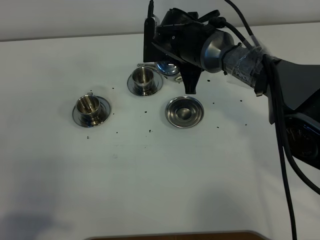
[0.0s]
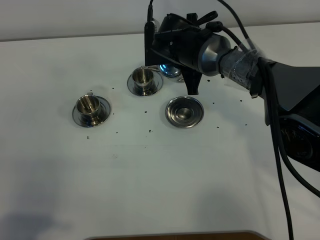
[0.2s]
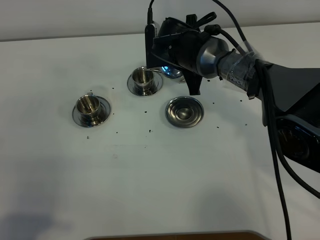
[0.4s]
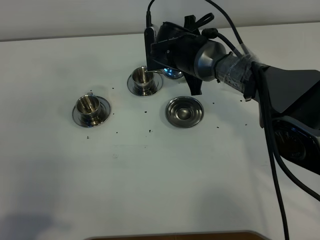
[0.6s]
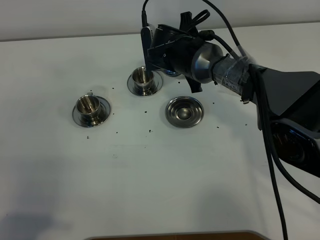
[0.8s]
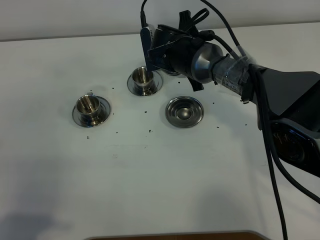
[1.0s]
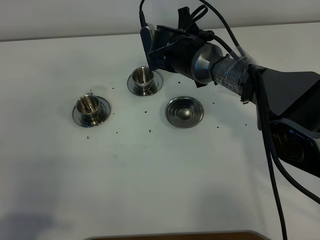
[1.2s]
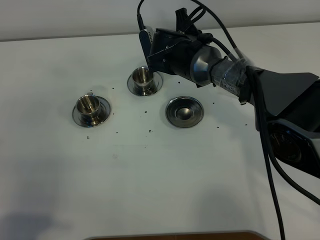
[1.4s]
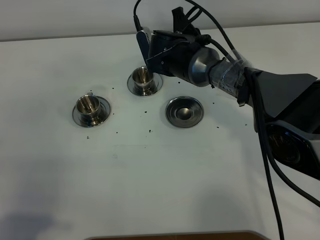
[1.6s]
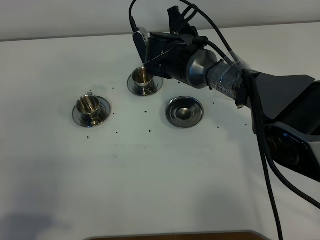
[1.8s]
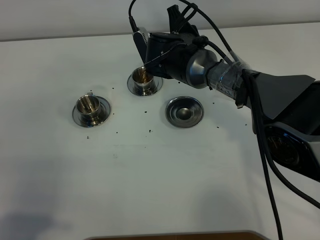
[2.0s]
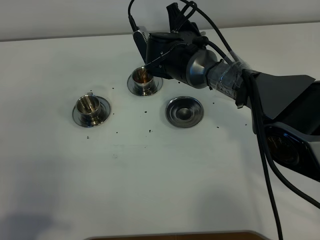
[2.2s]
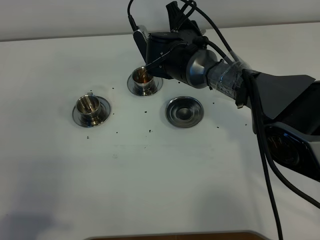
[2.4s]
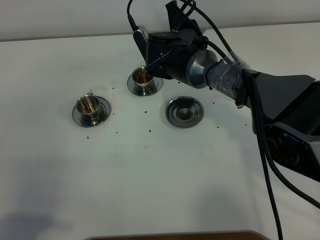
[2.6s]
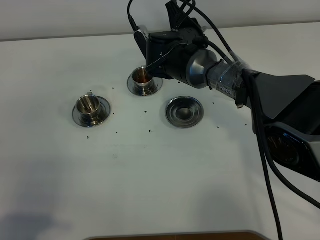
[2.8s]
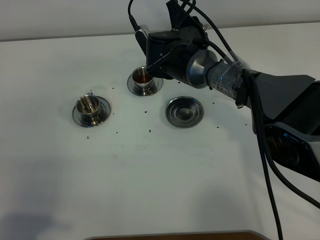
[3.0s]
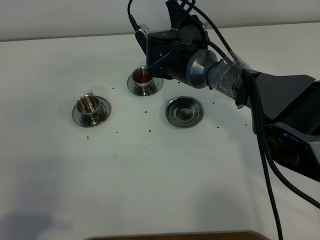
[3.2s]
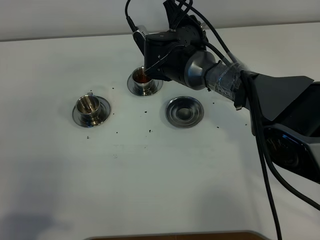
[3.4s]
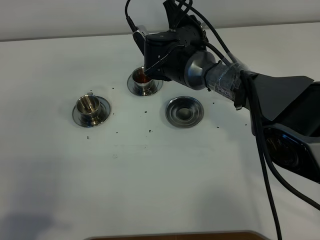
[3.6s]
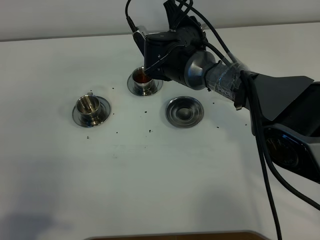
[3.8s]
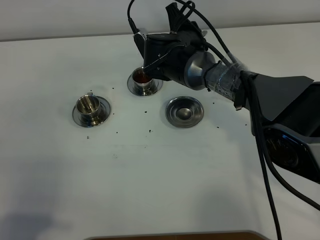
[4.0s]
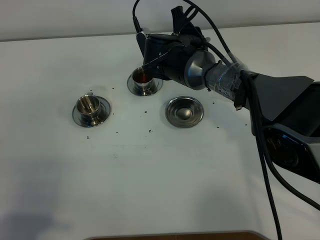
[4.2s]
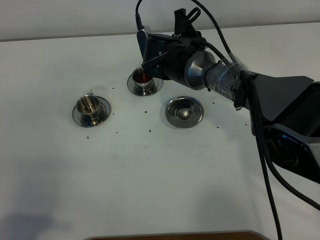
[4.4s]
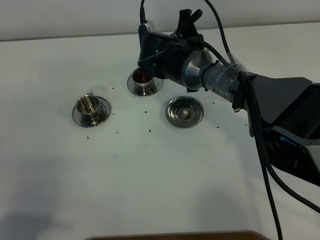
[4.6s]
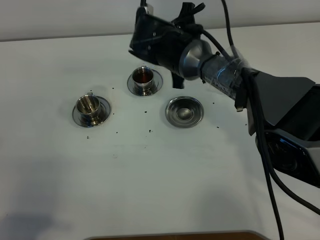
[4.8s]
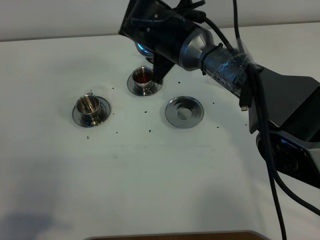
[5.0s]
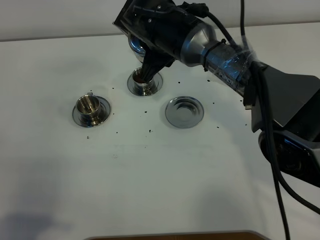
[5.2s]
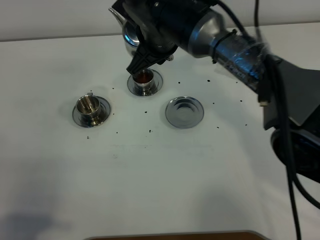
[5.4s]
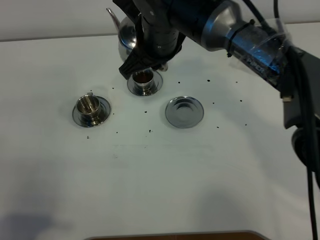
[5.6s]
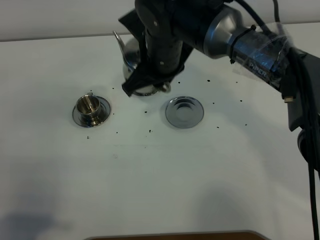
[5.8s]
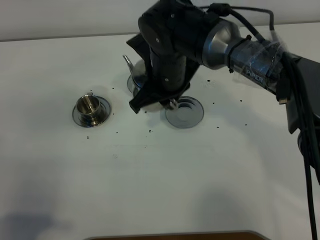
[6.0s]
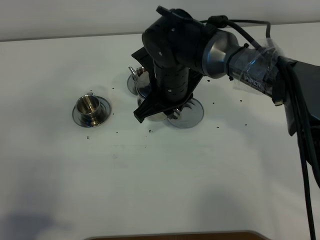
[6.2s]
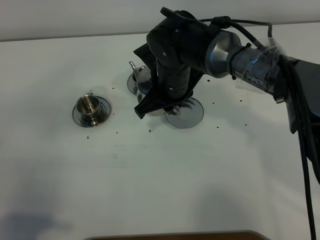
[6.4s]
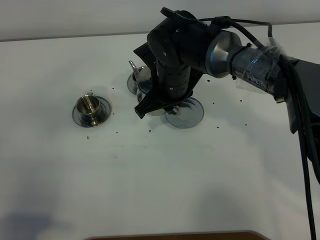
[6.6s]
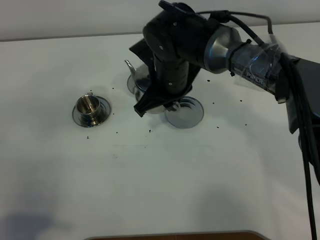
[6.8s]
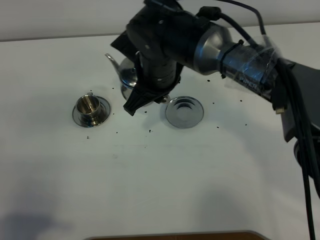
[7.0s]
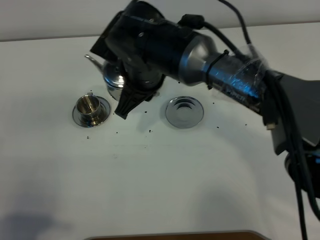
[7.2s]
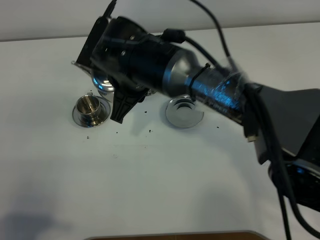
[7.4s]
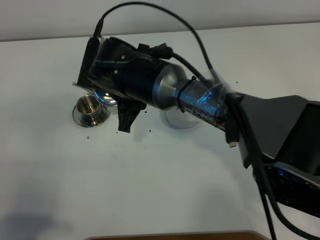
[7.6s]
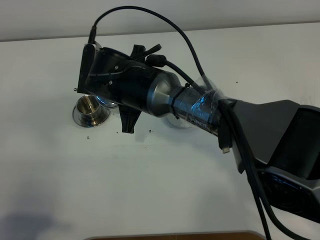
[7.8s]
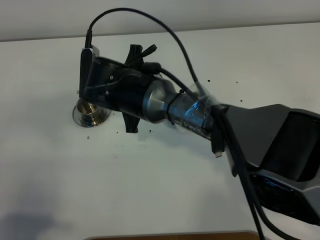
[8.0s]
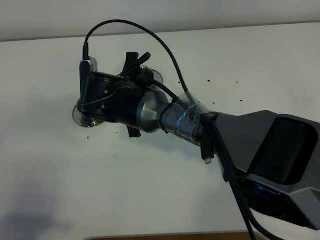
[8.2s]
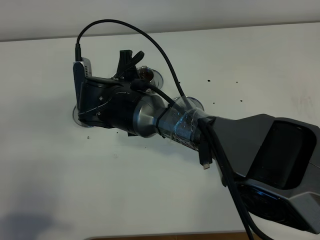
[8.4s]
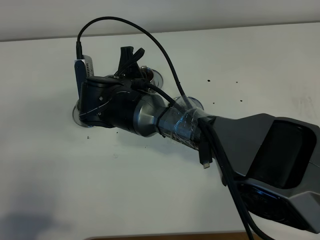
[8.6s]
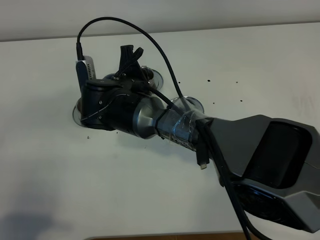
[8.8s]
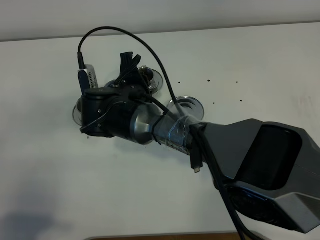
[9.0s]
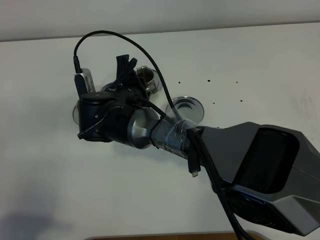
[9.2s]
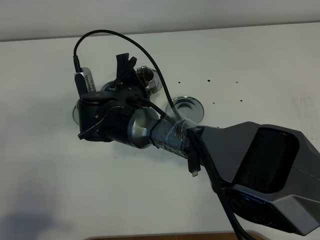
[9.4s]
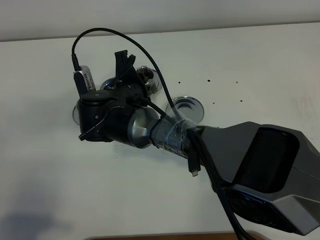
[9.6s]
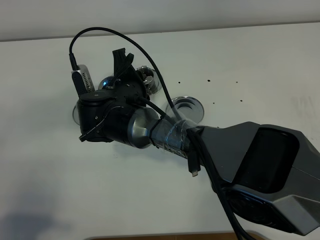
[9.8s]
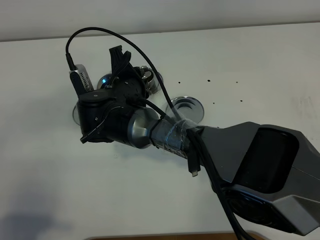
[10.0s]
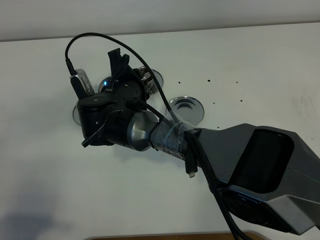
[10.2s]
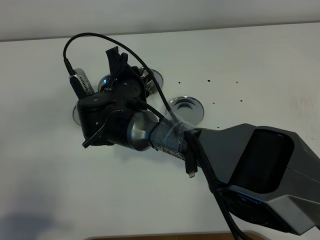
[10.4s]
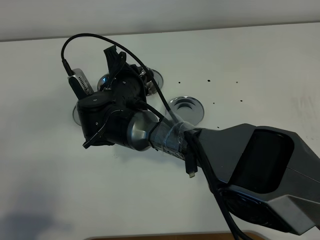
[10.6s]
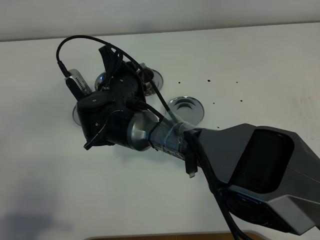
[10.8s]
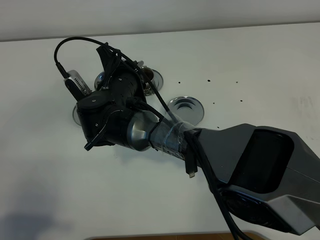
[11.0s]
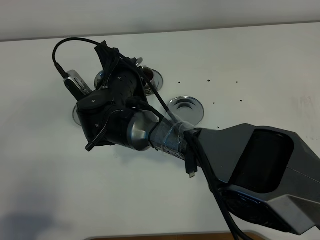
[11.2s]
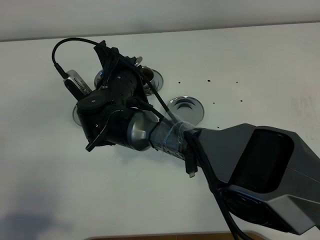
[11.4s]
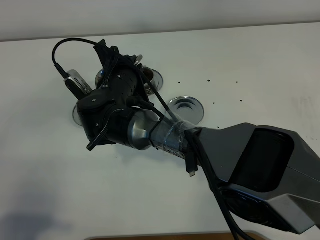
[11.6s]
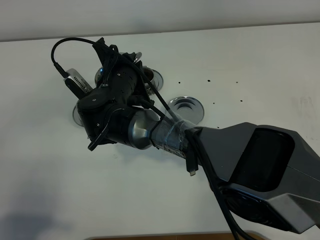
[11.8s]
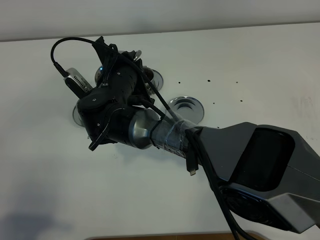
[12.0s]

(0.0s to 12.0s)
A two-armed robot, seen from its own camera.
Task of the whole recording: grasp the stainless steel teapot and pour the tea into the two stainless steel teacups one by one, put the stainless steel teapot back in its original place.
Step, 0.0s - 4.8s: Pour tea into the teacup with the right gripper.
1.6s - 4.4s: There are only small adjustments of the grippers.
4.4s - 6.0s: The right gripper heads backward, covering approximately 10 cm.
6.0s - 7.6s: The right gripper travels to the left by about 5 cm.
7.6s - 9.0s: The right gripper changes place by some 5 cm.
9.0s - 10.4s: The grippers stay close to where they were, moving slightly.
10.4s - 12.0s: There are only small adjustments of the grippers.

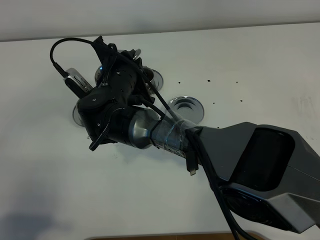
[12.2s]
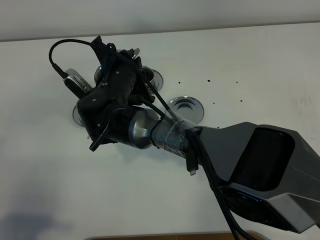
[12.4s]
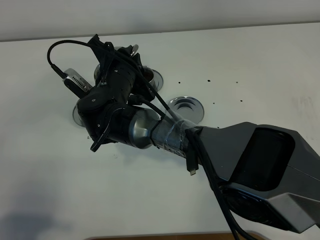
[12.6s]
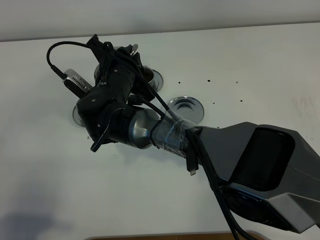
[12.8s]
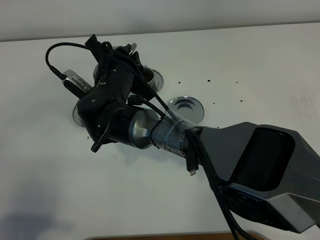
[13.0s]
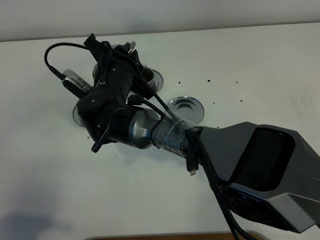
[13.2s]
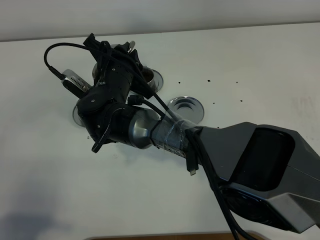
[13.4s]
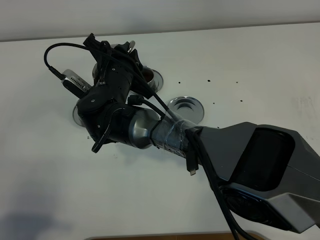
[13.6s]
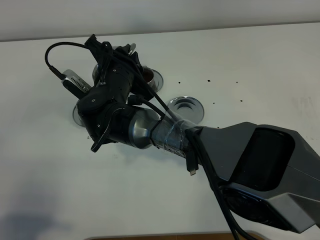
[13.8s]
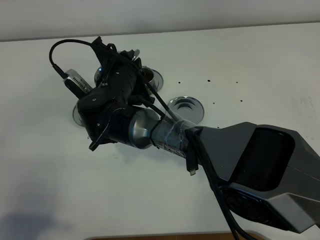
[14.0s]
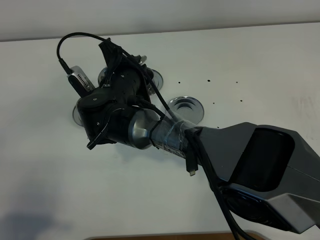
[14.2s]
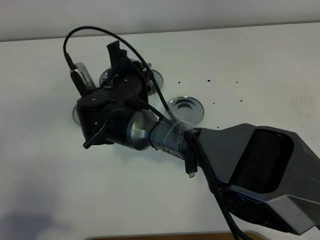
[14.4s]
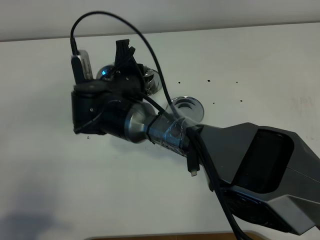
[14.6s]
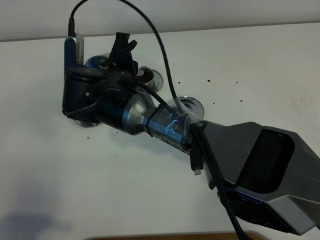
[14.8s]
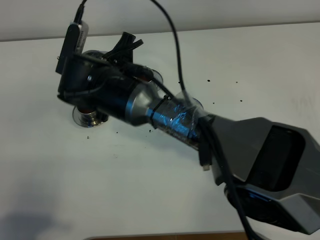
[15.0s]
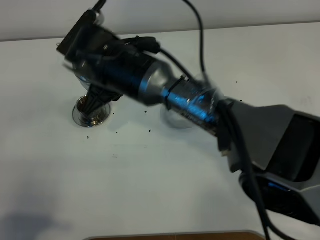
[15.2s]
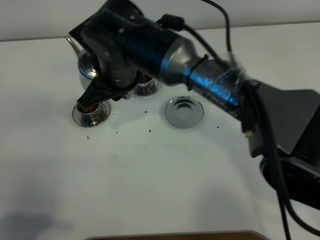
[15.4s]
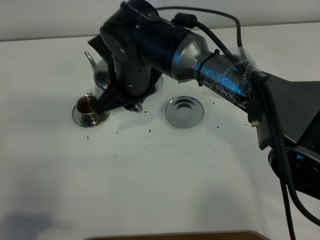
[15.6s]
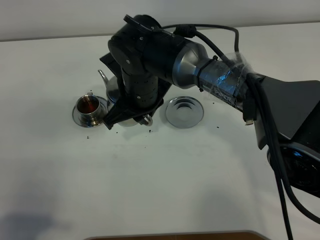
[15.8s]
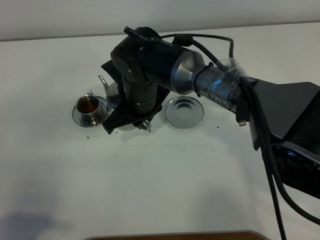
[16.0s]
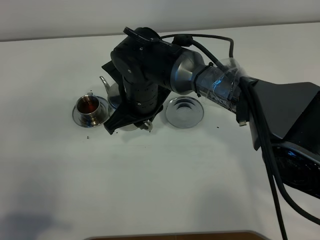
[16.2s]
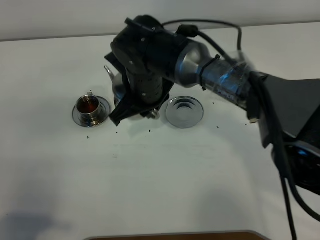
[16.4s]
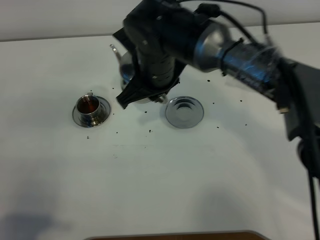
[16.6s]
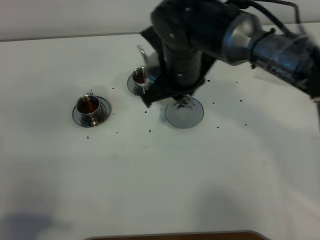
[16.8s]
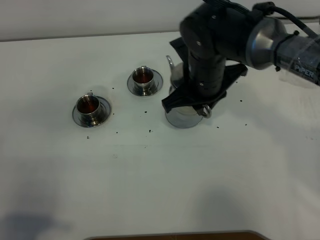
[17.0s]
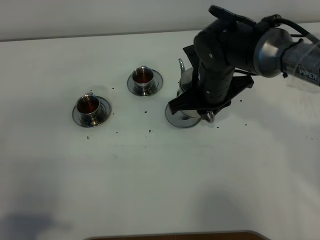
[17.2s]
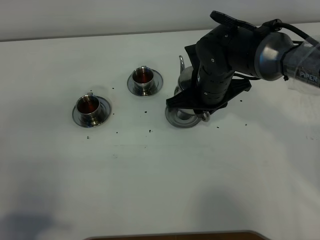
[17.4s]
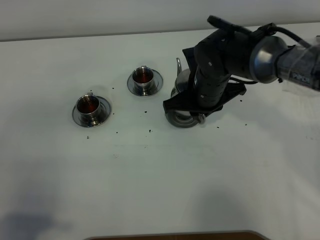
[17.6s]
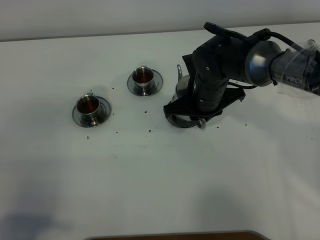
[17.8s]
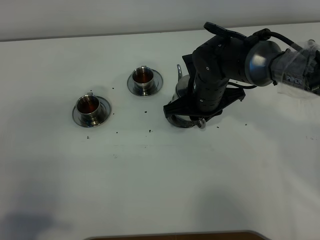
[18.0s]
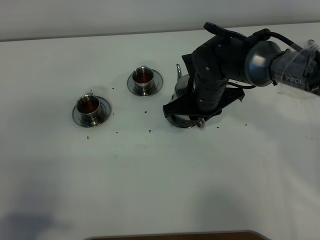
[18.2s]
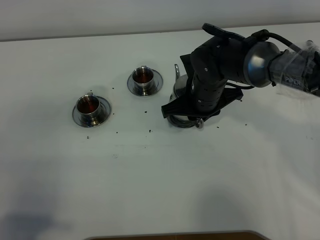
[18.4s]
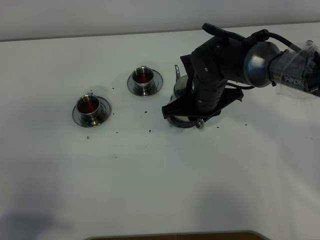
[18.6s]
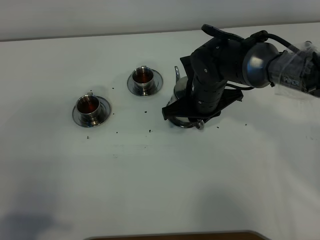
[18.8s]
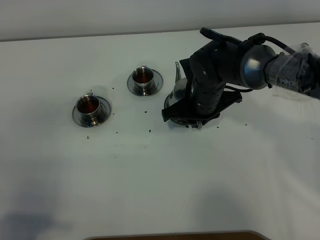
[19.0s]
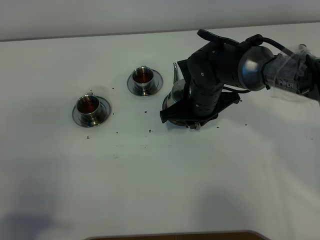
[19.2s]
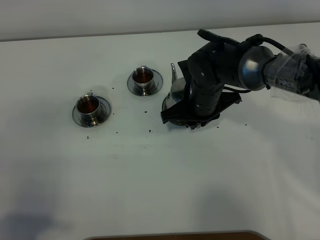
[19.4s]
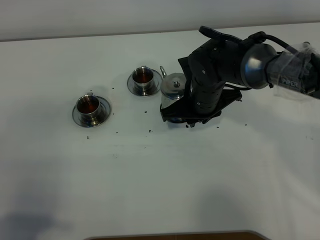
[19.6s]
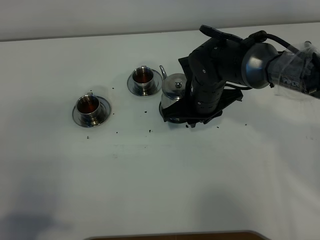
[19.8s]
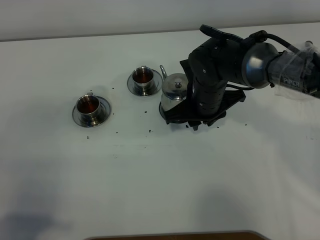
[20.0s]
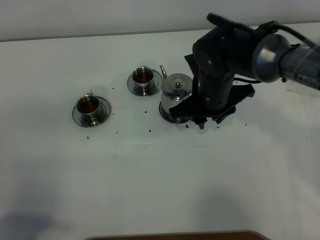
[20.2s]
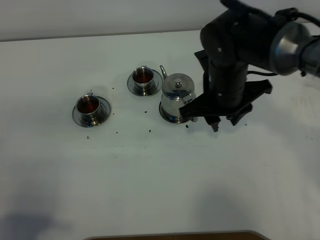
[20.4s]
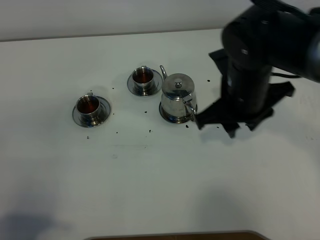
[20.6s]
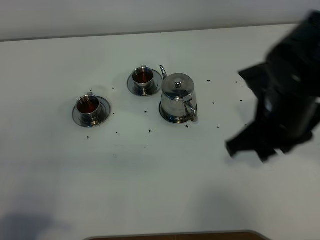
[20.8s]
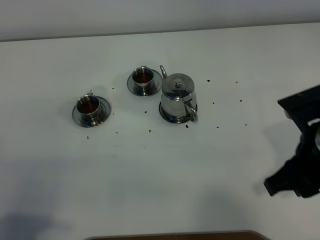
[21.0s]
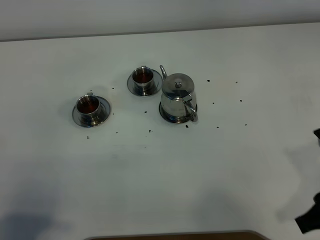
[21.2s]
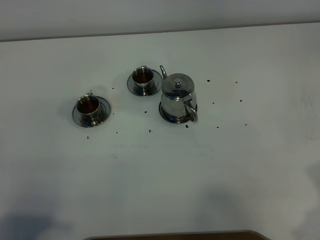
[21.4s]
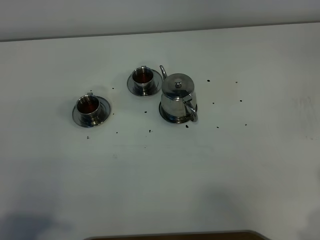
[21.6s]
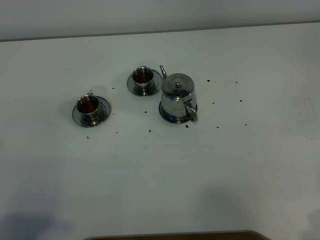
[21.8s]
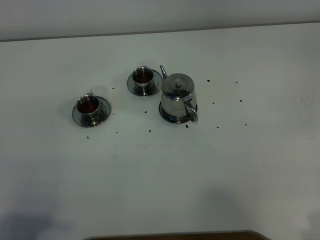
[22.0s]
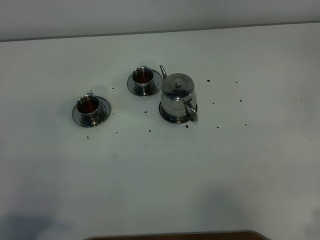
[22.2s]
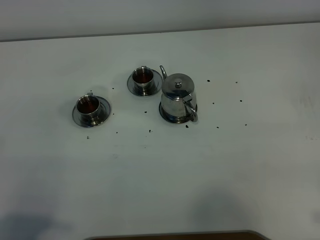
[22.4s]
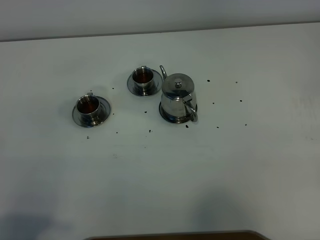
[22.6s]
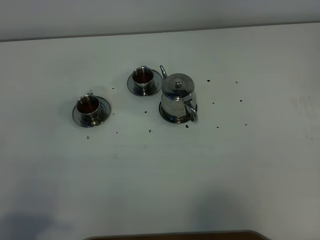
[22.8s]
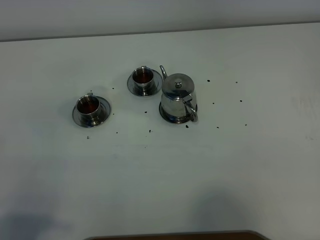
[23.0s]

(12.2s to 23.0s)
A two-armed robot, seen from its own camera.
Task of the whole recording: grasp the stainless steel teapot and pour the tea into the two stainless steel teacups one by one, put the stainless steel teapot back in its original place.
Step, 12.2s - 14.6s: Pour tea into the teacup with the right gripper.
12.2s - 13.8s: There are only small adjustments of the grippers.
13.8s - 15.2s: The right gripper travels upward by about 10 cm.
15.2s - 16.8s: The right gripper moves to the right, approximately 10 cm.
16.8s - 18.4s: The right gripper heads downward, covering roughly 10 cm.
18.4s - 20.0s: The right gripper opens.
20.0s - 21.4s: The right gripper is displaced backward and to the right by some 35 cm.
